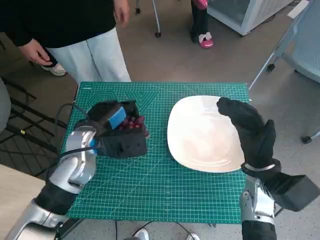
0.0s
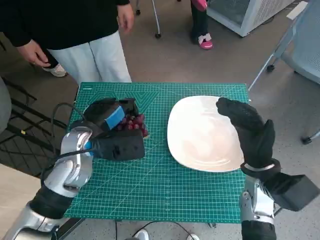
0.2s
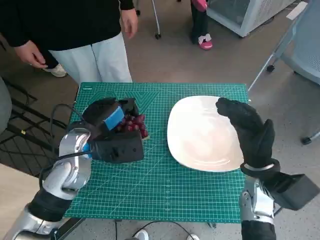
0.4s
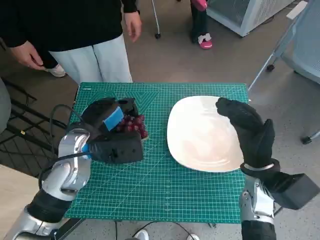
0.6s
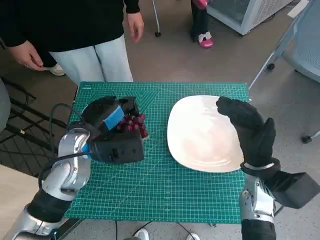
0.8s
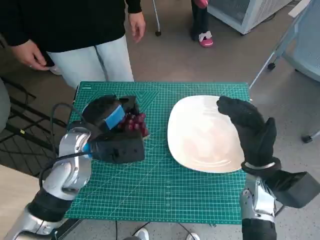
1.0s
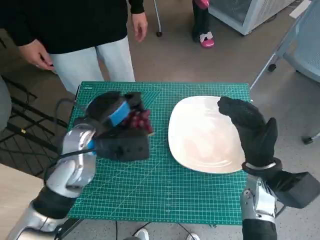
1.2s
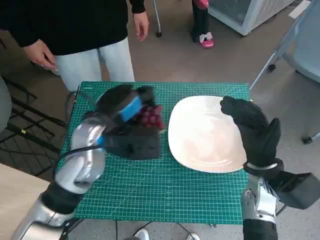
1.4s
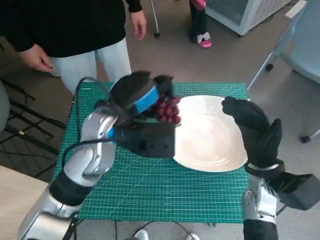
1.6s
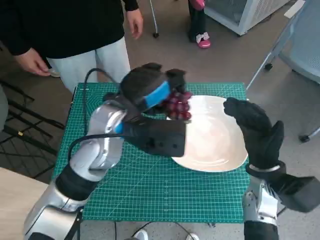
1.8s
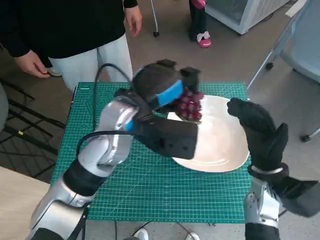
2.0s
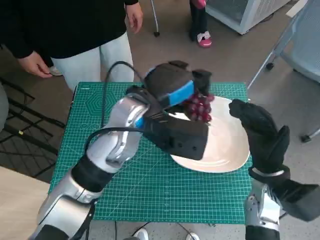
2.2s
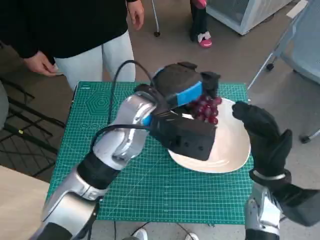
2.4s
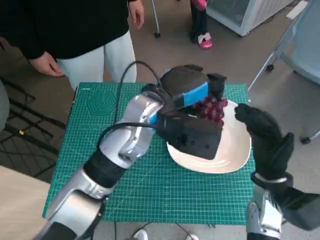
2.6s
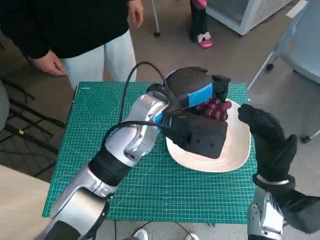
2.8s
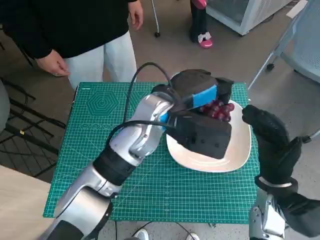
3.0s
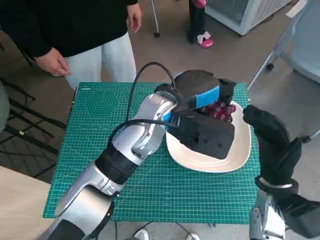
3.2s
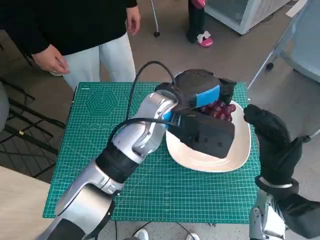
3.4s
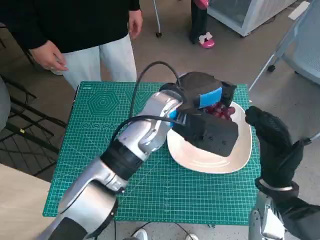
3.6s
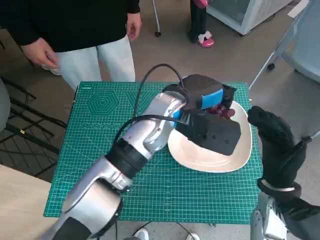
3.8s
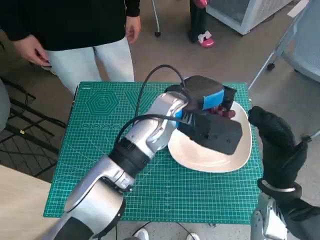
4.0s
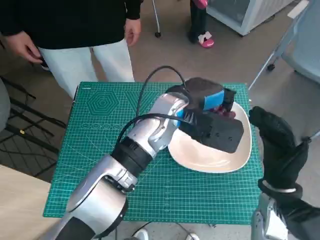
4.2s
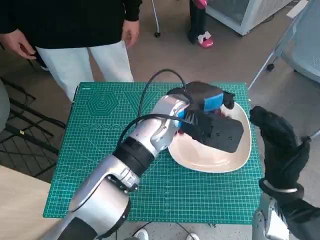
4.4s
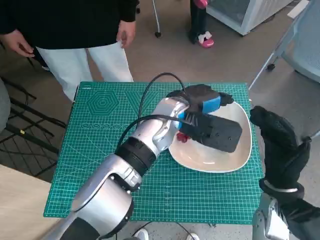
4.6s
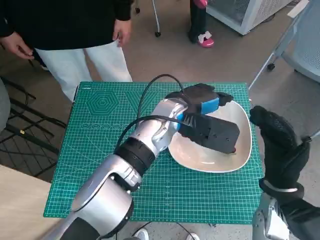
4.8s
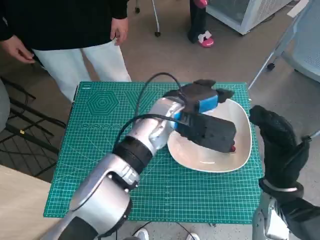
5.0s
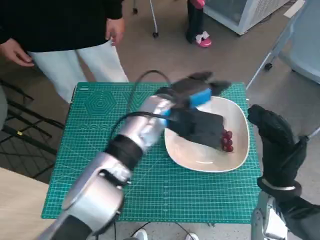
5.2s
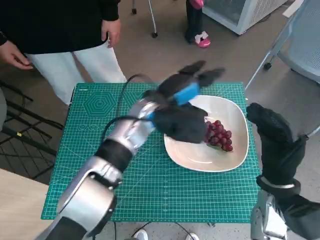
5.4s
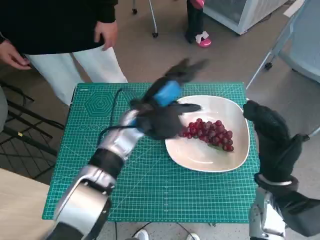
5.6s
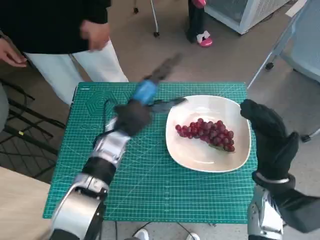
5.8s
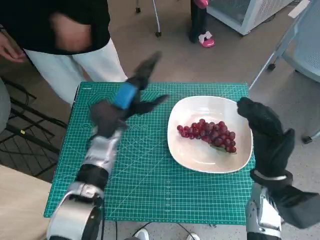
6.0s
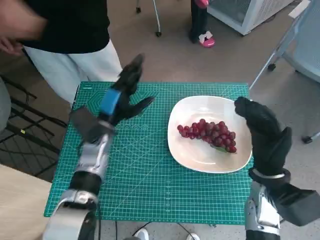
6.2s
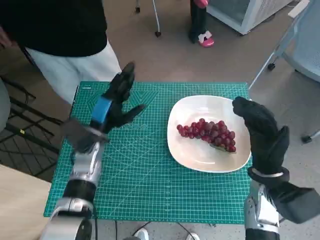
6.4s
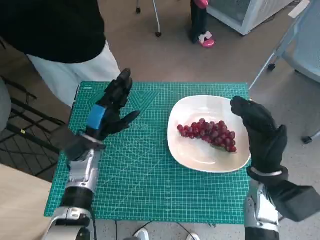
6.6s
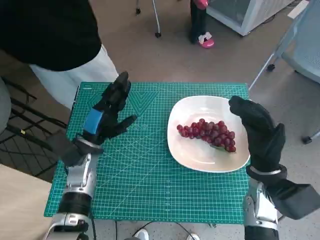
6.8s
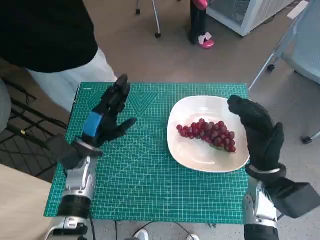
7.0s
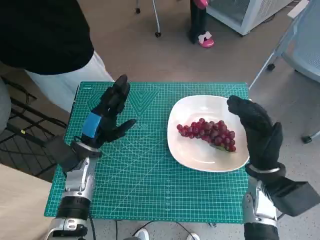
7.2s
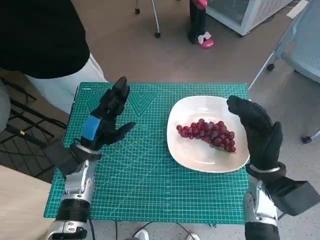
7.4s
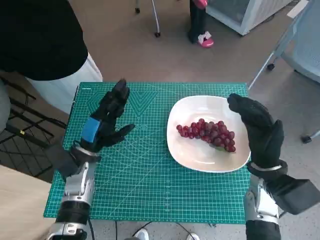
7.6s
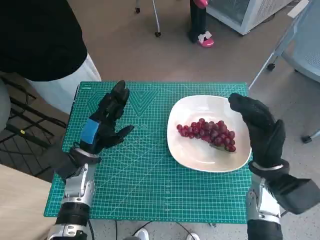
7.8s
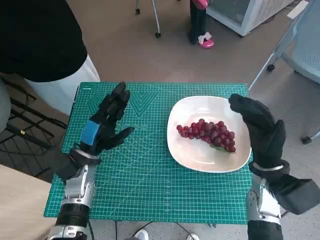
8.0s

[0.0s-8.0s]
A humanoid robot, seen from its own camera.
Task of the whole recording: Pick up the grapes and put them on the plate.
Step, 0.0s to 5.0s: Place the grapes in the plate with left hand.
0.0s to 1.6s: The left hand shifts about 5 cm upward.
1.6s to 3.2s: The left hand moves to the right, roughly 10 cm.
4.8s to 6.4s: The left hand is displaced to the left and downward by about 20 cm.
6.4s to 8.0s: The left hand changes place by about 5 cm.

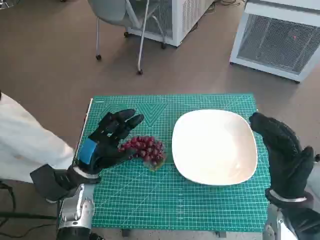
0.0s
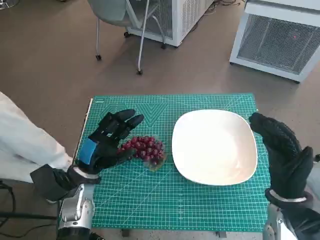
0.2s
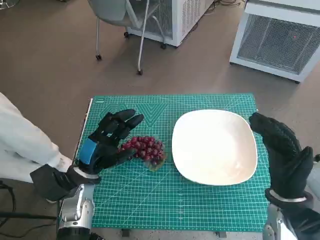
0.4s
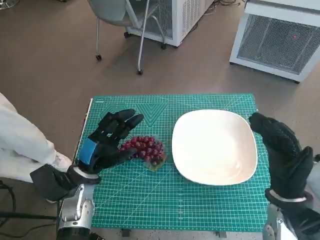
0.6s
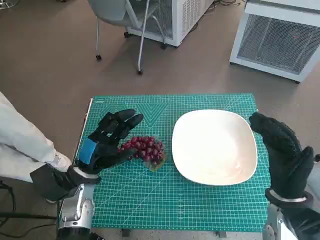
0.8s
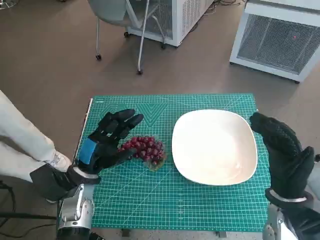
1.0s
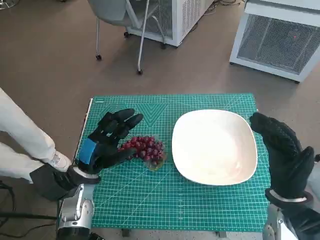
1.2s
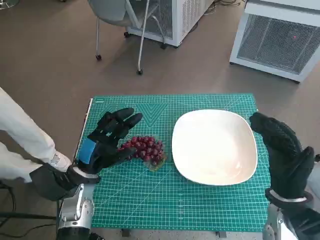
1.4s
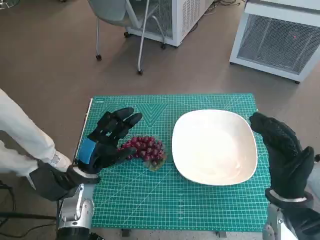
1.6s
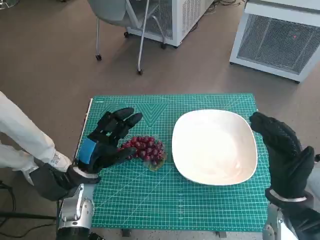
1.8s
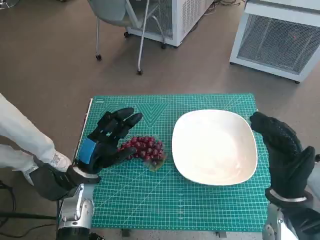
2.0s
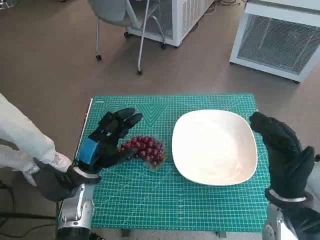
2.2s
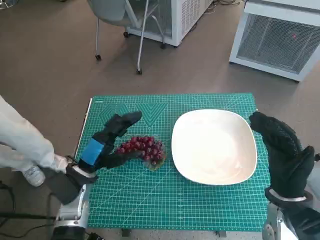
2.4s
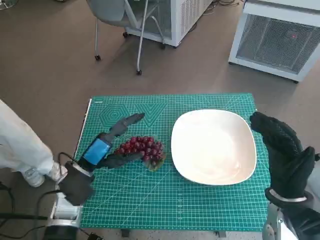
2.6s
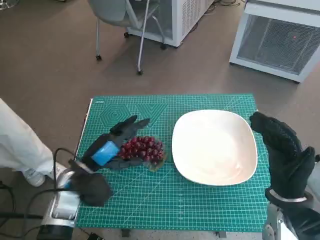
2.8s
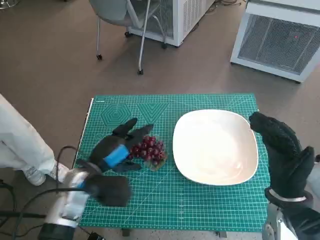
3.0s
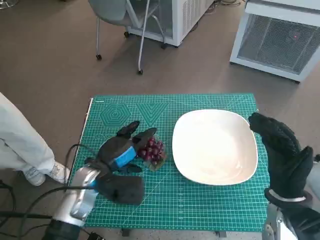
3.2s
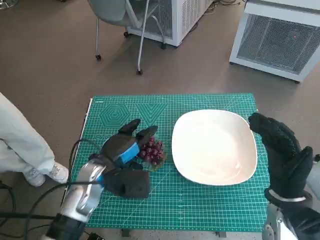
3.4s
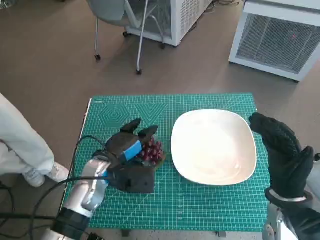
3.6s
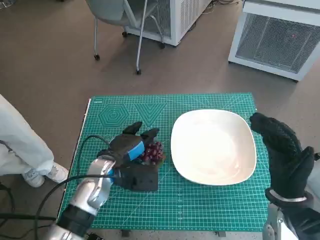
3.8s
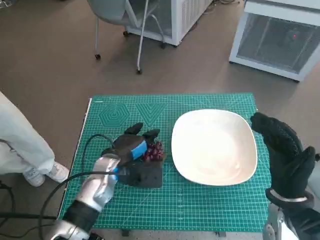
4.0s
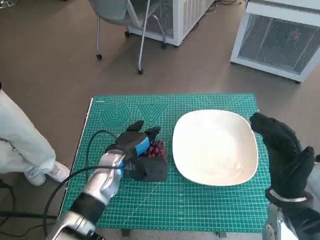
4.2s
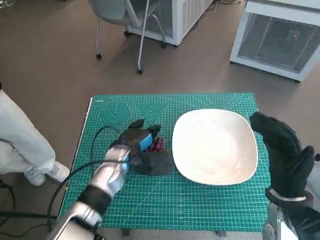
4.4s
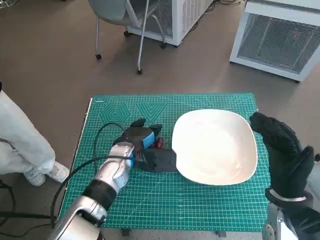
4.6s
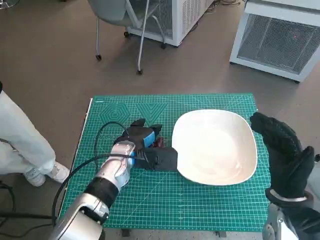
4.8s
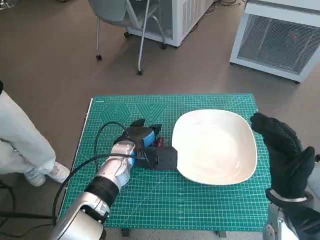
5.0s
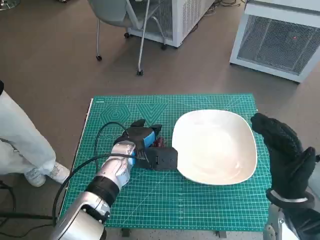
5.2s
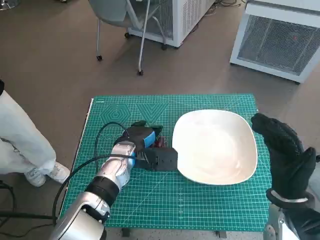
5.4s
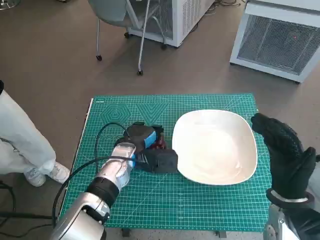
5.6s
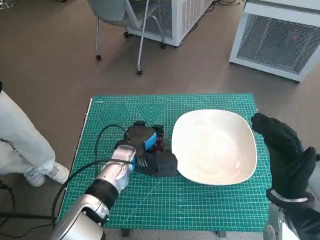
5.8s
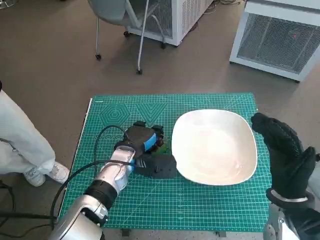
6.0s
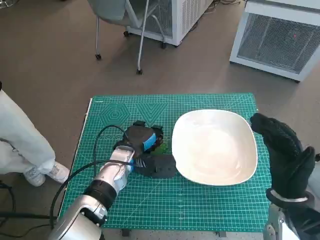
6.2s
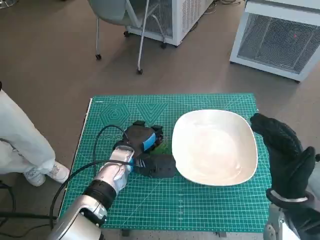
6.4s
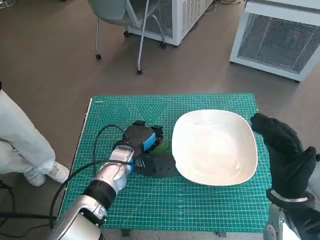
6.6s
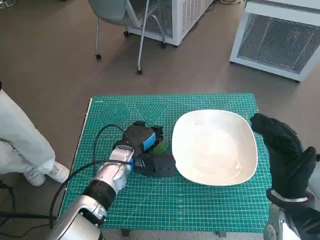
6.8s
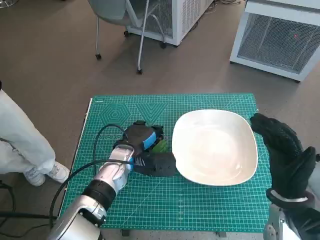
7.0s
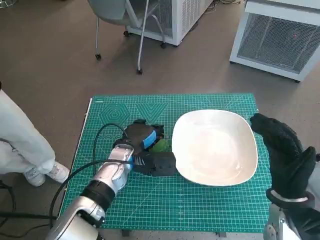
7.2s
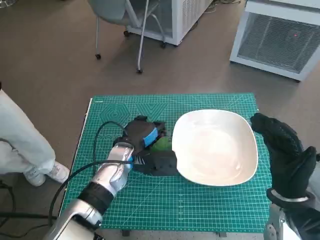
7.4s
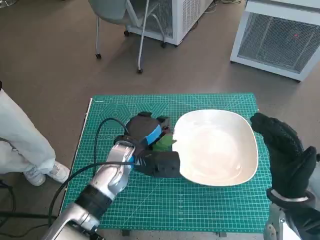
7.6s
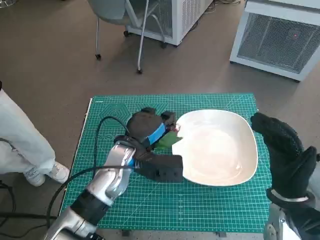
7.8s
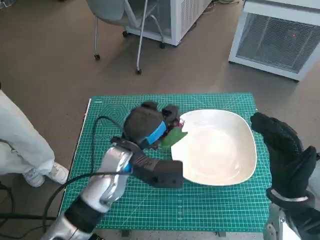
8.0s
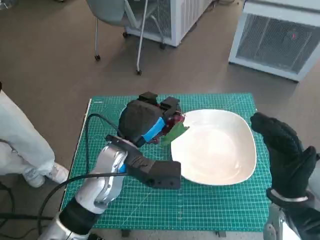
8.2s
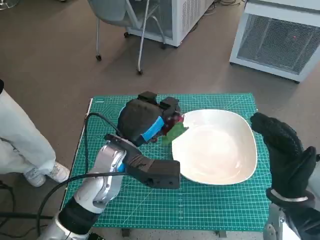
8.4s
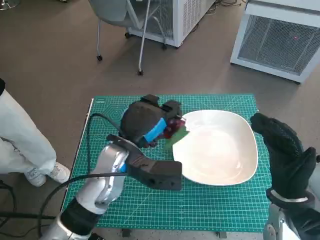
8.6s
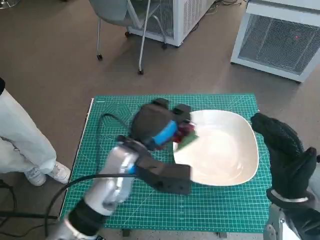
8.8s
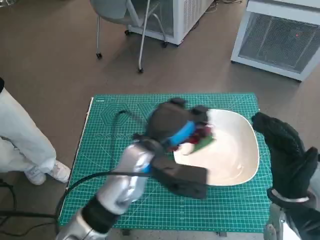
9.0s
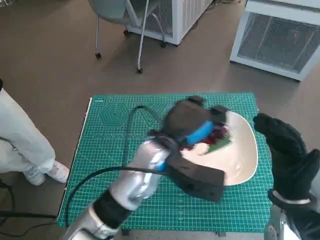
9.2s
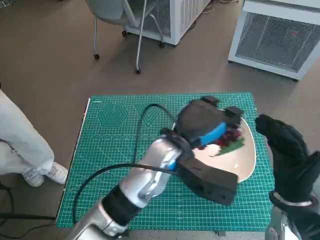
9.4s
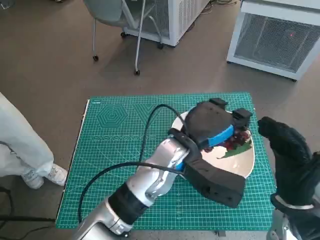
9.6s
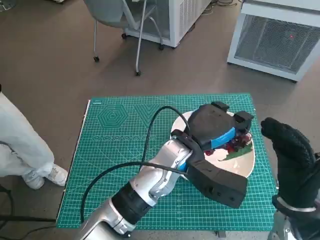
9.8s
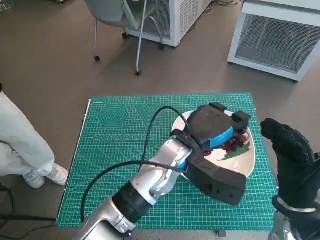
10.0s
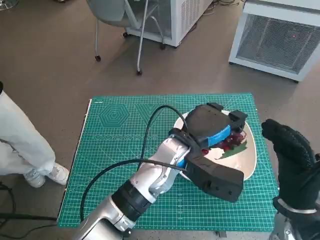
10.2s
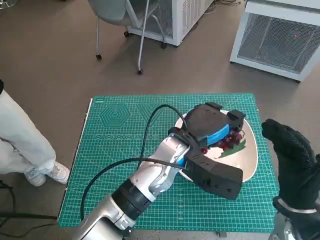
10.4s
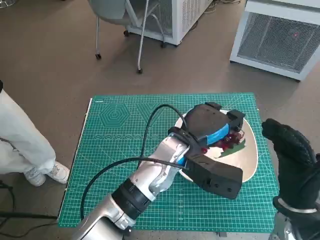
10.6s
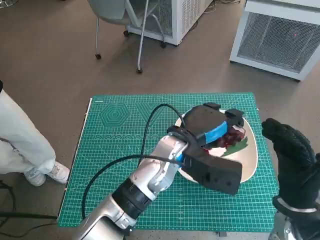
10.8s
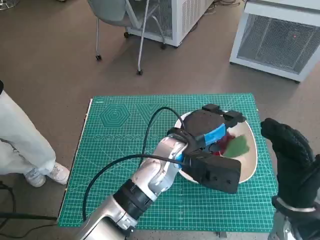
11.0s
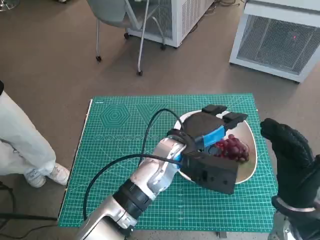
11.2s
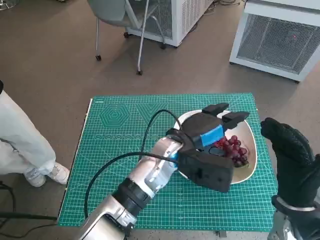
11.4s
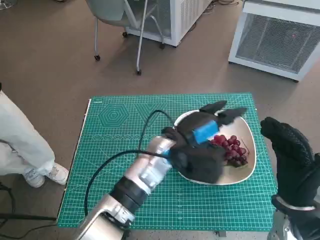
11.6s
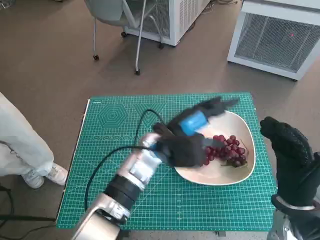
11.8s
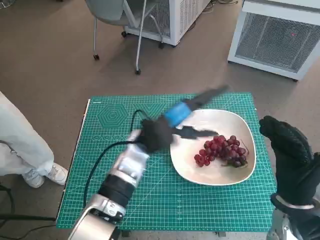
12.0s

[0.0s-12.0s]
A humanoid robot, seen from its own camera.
Task of the whole recording: Pick up the grapes and put them on the plate.
Step, 0.0s to 6.6s: Grasp the grapes with left hand.
Step, 6.8s to 11.2s: Place the grapes in the plate with left hand.
3.0s to 4.4s: The left hand goes roughly 10 cm to the right and forward.
4.4s to 7.6s: The hands make only small movements.
7.6s to 9.0s: The left hand is displaced upward by approximately 5 cm.
9.0s to 10.4s: The left hand goes roughly 5 cm to the right.
10.4s to 12.0s: The left hand heads to the left, covering about 5 cm.

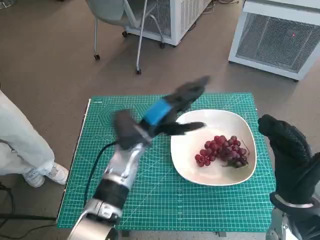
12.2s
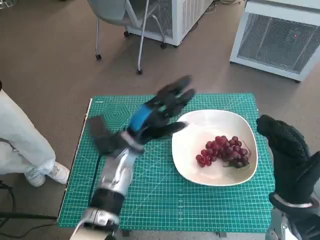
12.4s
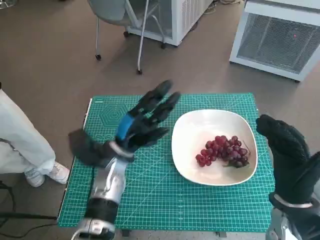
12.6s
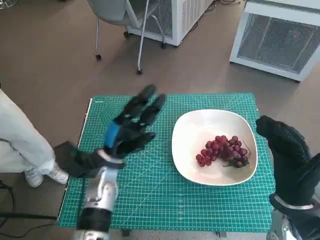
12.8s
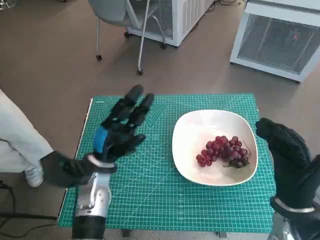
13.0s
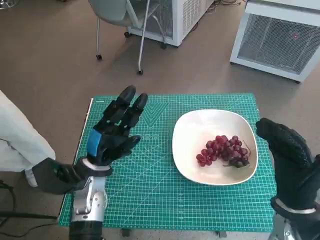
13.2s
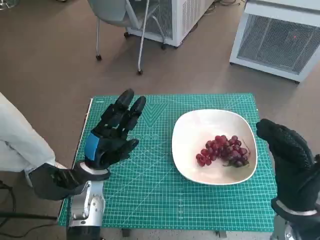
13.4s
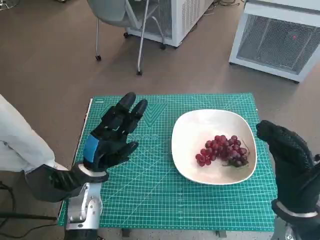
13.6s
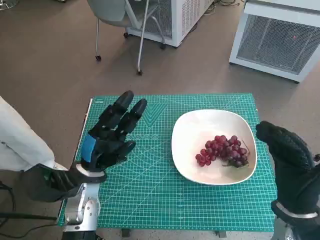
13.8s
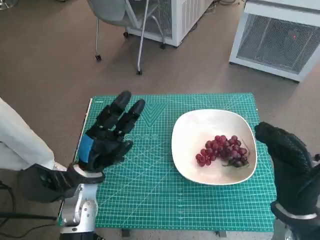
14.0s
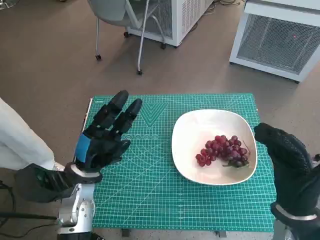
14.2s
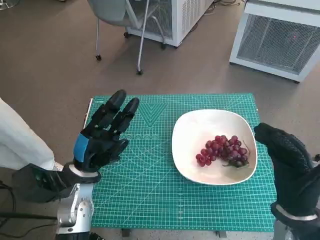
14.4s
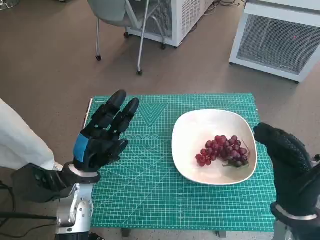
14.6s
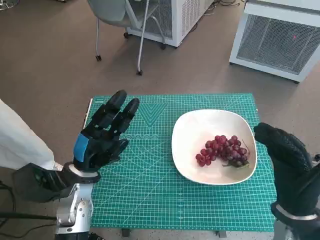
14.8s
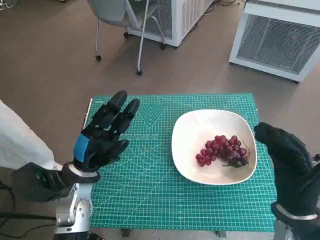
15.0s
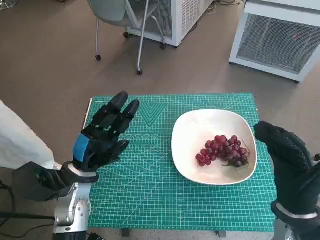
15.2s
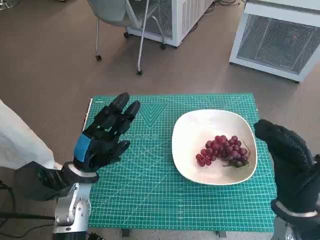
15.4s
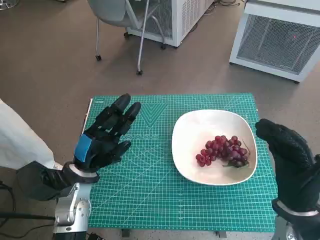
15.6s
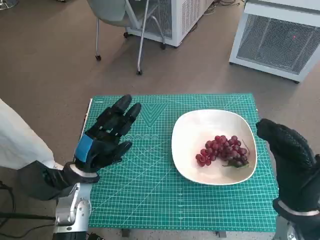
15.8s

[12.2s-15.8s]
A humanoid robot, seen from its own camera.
Task of the whole recording: Pick up the grapes and put them on the plate.
12.2s to 14.0s: The left hand moves to the left and backward, some 15 cm.
14.0s to 15.8s: There are only small adjustments of the hands.
